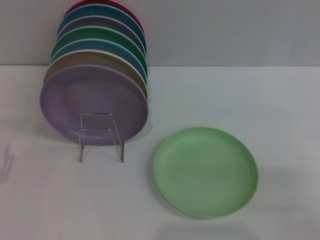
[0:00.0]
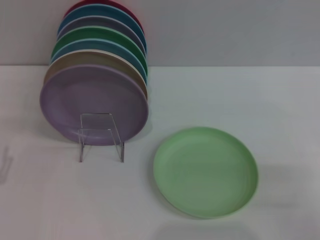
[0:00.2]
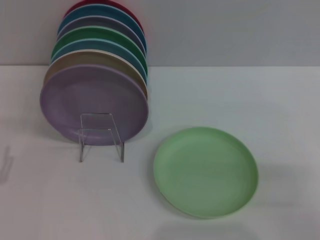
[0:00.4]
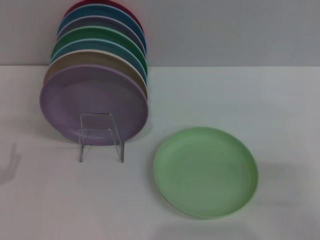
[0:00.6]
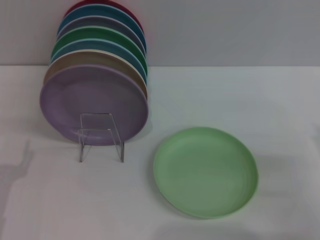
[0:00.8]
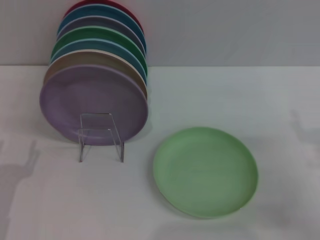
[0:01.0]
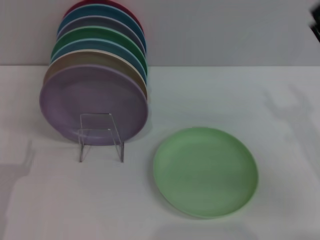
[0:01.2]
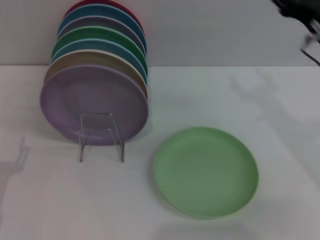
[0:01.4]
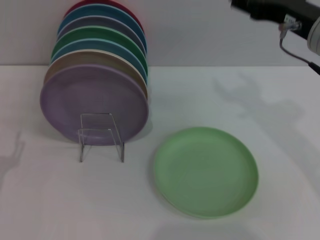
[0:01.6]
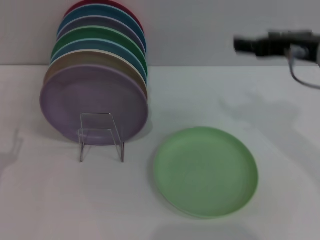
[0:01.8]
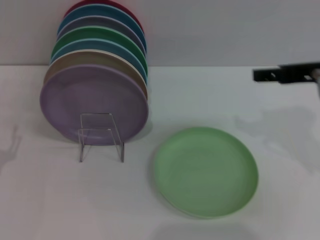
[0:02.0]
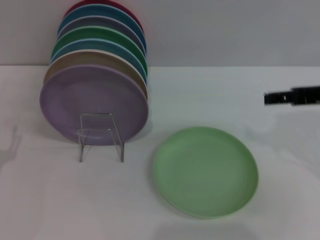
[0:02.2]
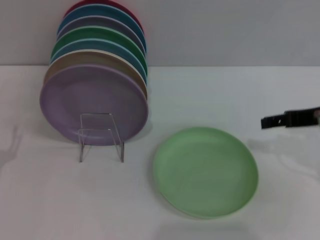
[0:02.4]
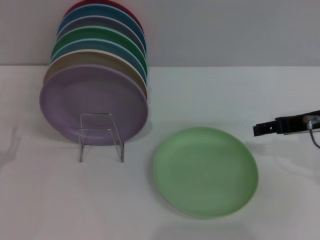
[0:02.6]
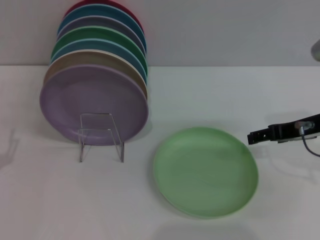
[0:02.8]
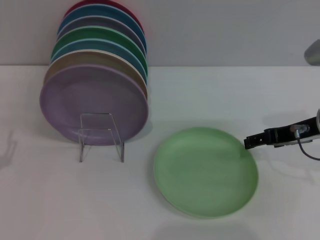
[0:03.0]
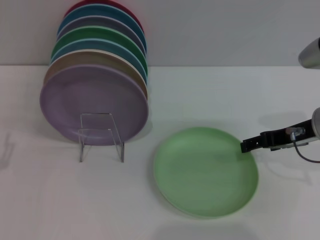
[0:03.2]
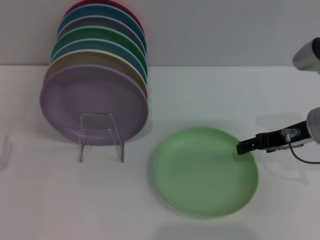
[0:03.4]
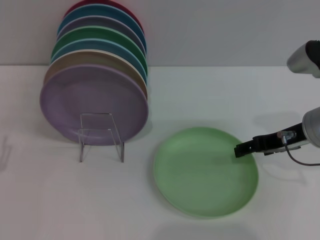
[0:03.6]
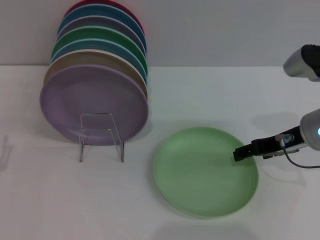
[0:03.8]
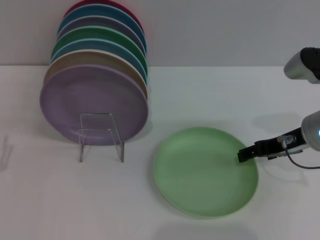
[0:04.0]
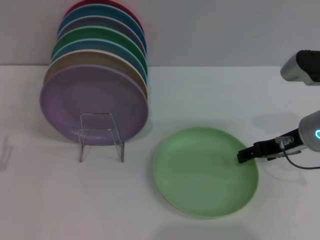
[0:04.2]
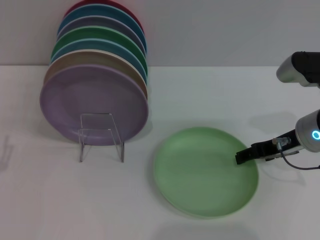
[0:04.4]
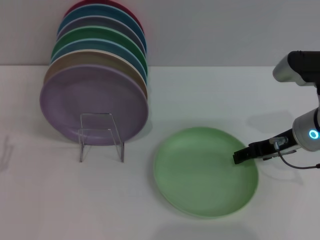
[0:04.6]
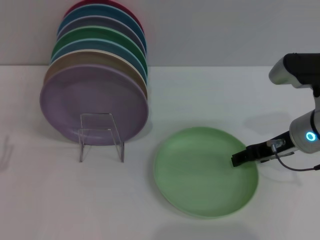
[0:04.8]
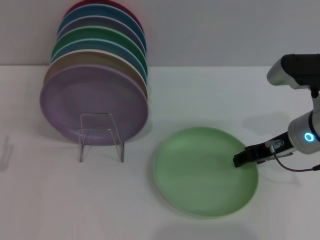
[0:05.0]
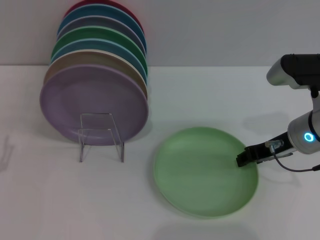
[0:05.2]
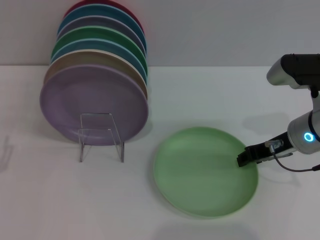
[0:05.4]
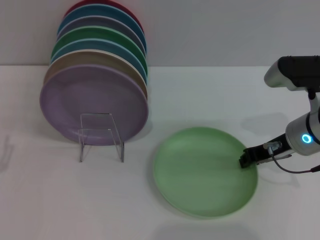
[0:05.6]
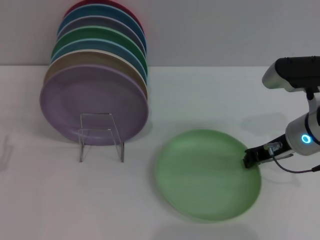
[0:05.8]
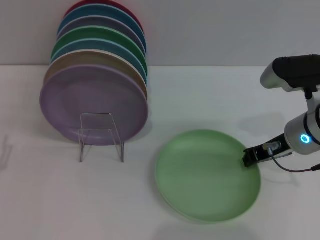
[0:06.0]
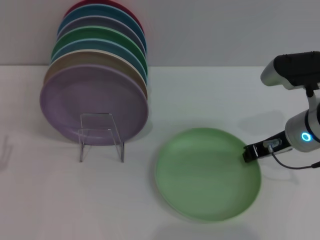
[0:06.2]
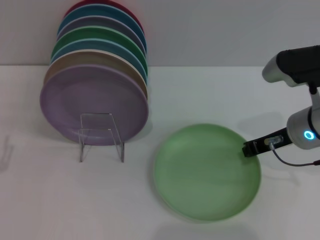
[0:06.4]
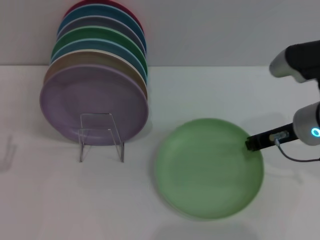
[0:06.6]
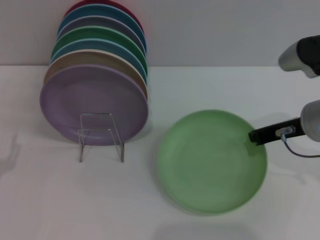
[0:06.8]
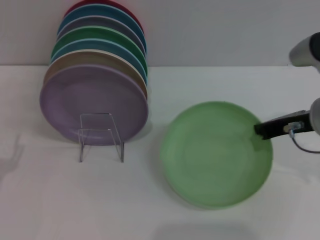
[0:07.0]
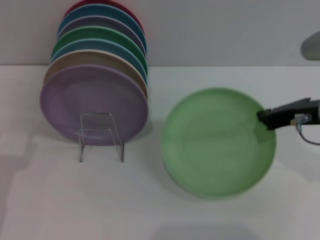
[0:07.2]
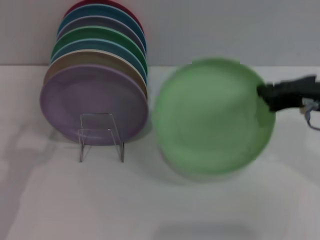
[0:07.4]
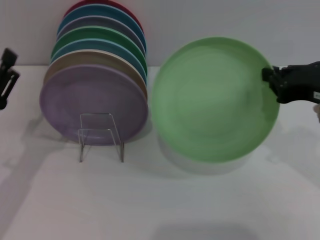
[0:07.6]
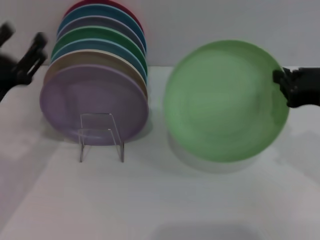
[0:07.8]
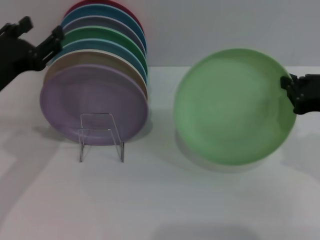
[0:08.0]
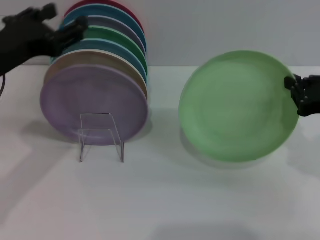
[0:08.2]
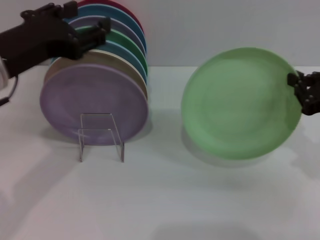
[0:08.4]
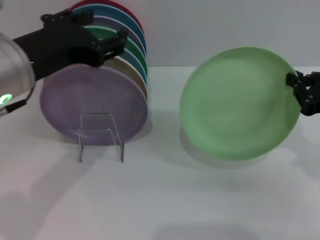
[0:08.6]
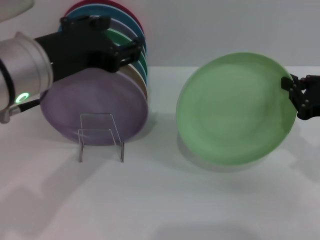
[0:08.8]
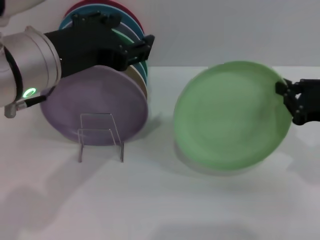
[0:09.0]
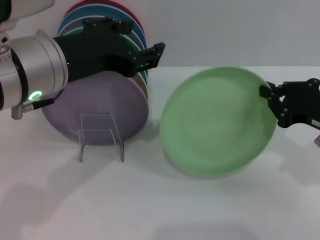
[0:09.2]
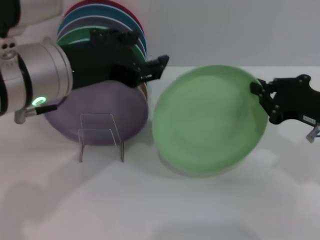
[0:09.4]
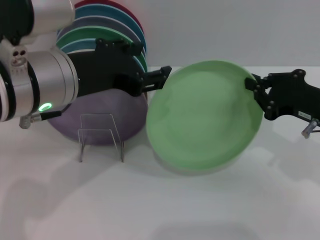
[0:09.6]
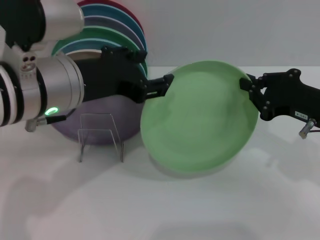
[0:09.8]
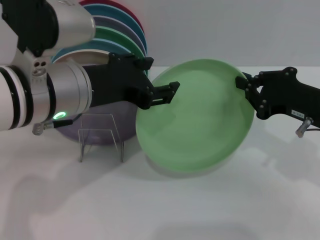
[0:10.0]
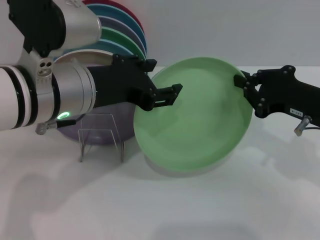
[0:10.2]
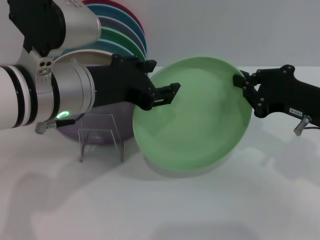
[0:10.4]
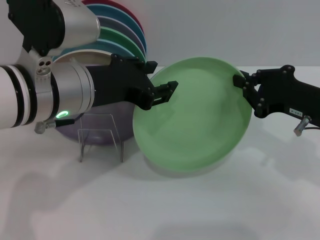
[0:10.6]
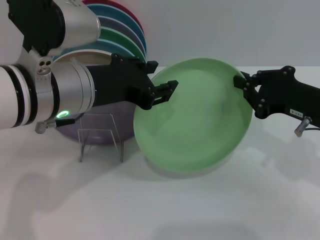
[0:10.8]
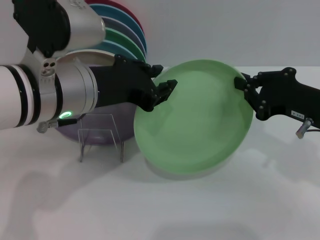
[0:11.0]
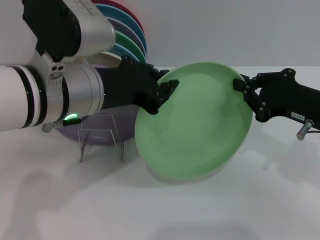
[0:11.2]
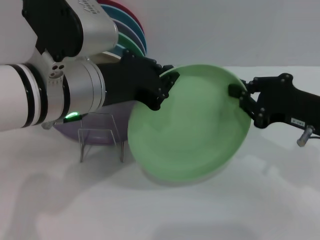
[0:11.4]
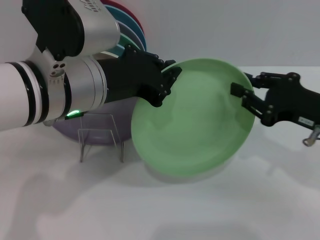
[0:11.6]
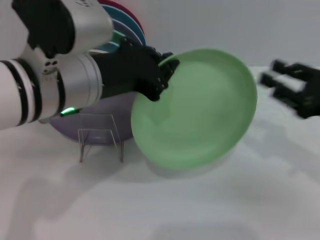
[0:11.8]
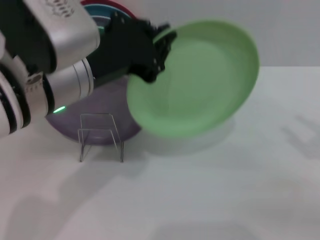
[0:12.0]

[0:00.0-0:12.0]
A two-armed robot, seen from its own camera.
Task of the whole recording: Grip the plate with one hand, pass it to the other, then set it on the shelf.
Step, 0:00.0 to 0:07.2: Pick up the plate with the right gripper.
Step, 0:07.6 to 0:11.6: Pass the plate from the right gripper to the left gripper.
0:00.0 to 0:01.6: The right gripper travels upward, forward and to the left by approximately 25 cm.
0:01.6 to 0:03.0: The right gripper shifts approximately 5 cm downward.
0:03.0 to 0:04.4: There are only small adjustments of the grippers.
0:04.4 to 0:06.0: The right gripper closes.
0:06.0 to 0:07.6: The right gripper moves upward and backward, roughly 10 cm, while the left gripper ends up approximately 5 cm from where it was.
0:07.6 to 0:09.0: The right gripper is displaced downward and to the right by roughly 10 cm. The left gripper is displaced upward and to the right by about 20 cm.
0:10.4 to 0:12.0: The right gripper moves to the right and backward, about 15 cm, and opens; the left gripper closes up.

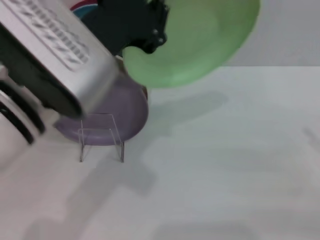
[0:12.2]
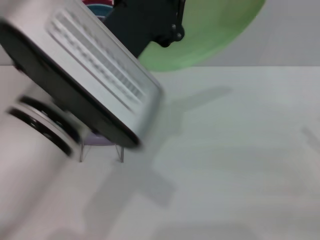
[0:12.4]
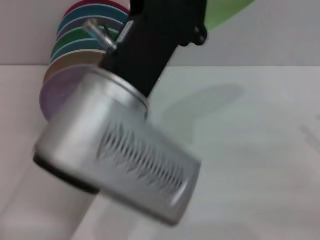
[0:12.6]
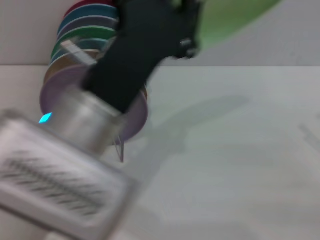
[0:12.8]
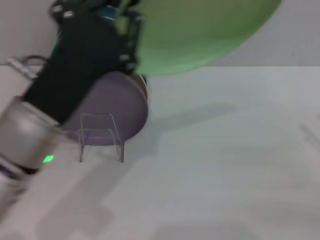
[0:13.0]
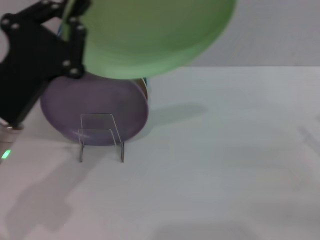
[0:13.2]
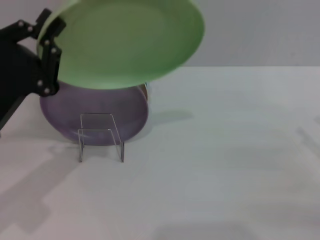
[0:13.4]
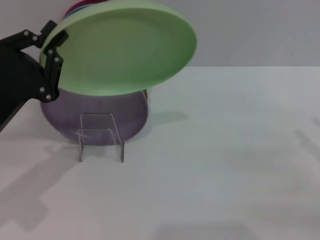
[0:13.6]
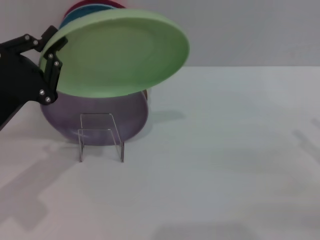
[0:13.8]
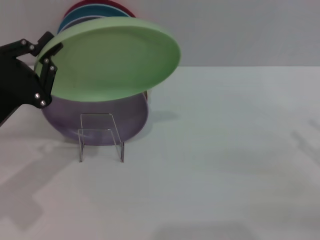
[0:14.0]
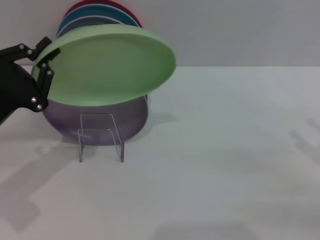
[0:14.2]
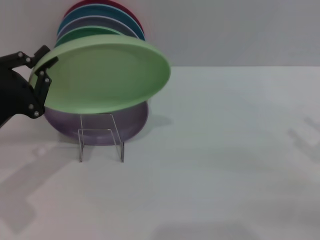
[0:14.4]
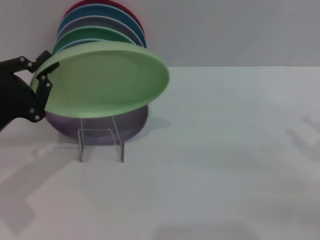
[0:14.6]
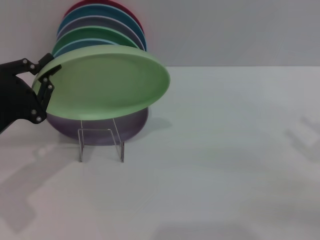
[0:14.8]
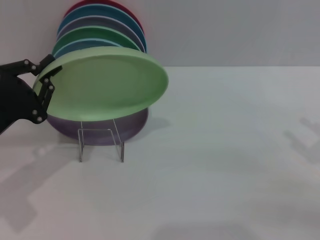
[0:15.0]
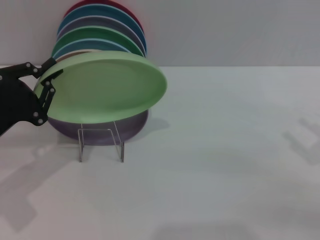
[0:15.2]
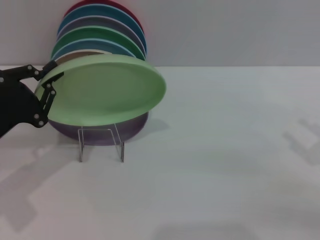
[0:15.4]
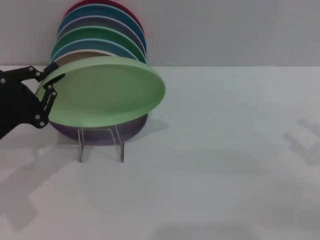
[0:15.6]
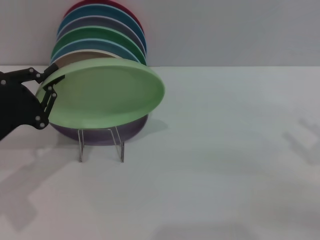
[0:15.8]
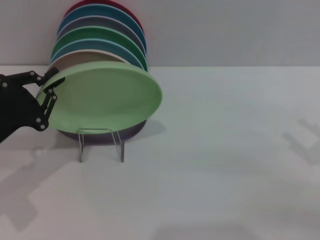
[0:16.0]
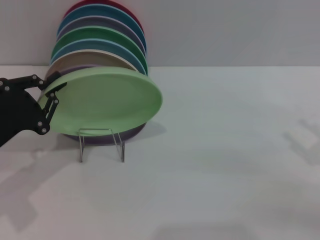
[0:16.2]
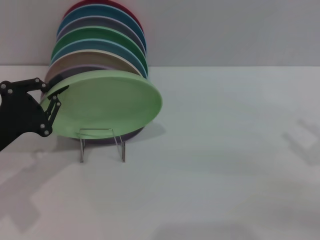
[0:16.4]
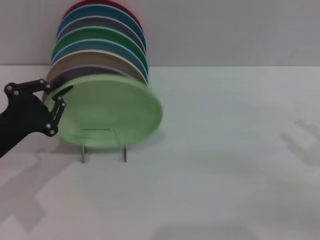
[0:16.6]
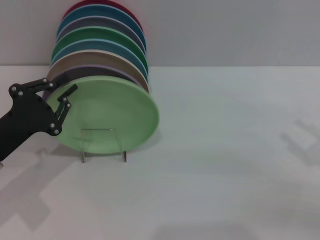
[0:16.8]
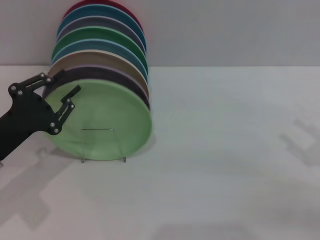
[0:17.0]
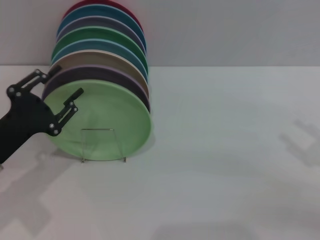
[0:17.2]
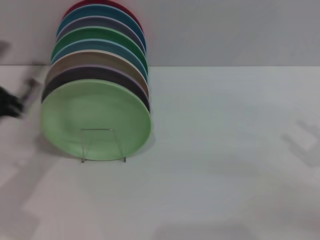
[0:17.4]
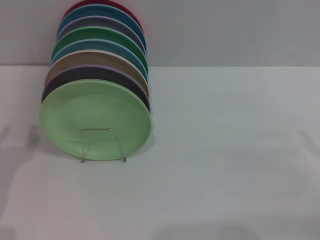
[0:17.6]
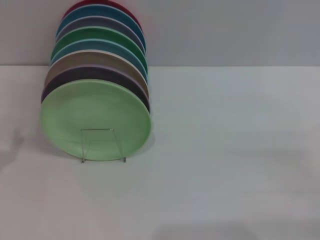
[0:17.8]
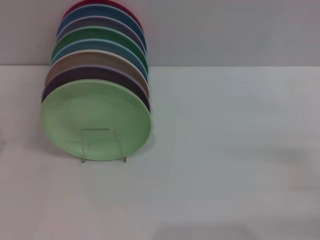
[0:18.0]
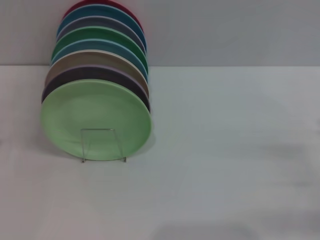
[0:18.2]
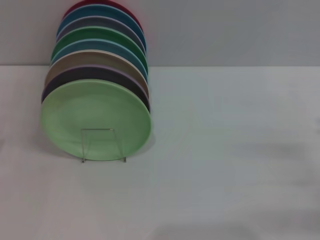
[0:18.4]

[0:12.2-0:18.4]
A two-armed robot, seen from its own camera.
Task of the whole recording: Grip the plate with one hand, pass it to the other, then set it on the shelf.
Step, 0:12.2 to 0:17.2: Place the plate on the shelf with the left gripper.
0:12.2 to 0:13.8: The left gripper goes approximately 20 cm to the left and downward.
0:13.8 to 0:16.8: The grippers move only a little.
0:16.8 to 0:18.4: The left gripper moves backward and to the left, some 10 cm, and opens its fingers. The right gripper heads downward, covering approximately 5 cm.
